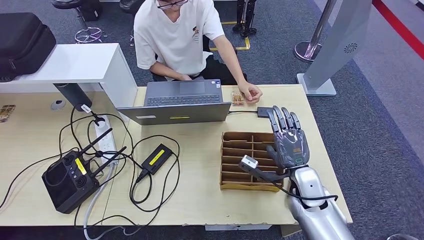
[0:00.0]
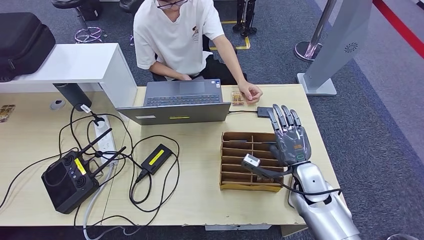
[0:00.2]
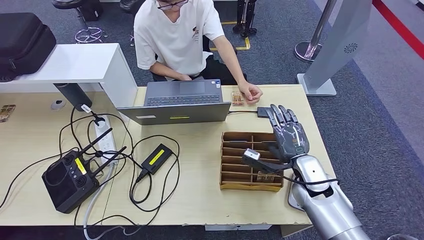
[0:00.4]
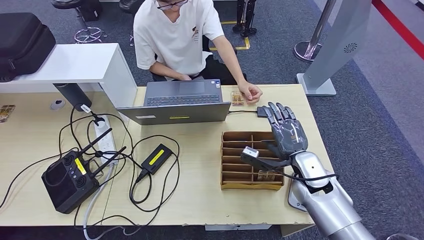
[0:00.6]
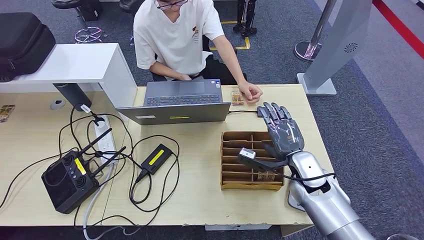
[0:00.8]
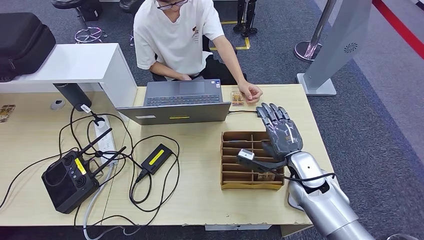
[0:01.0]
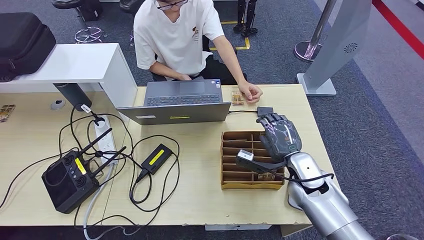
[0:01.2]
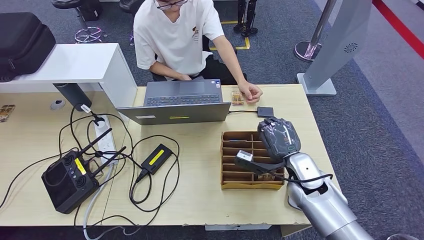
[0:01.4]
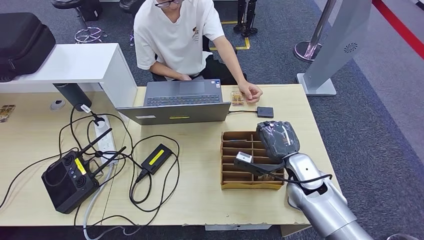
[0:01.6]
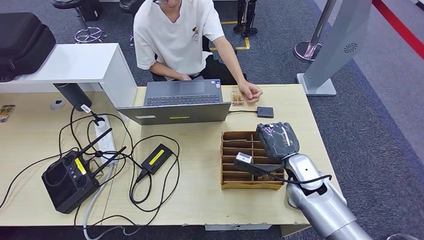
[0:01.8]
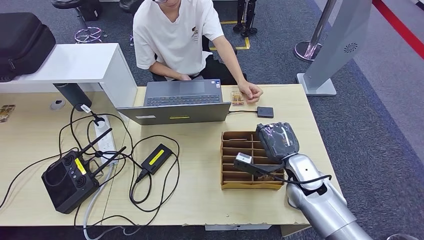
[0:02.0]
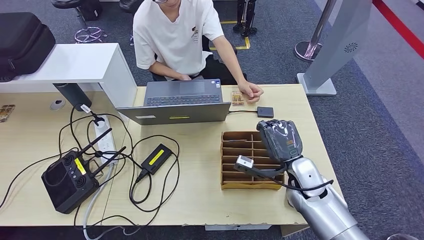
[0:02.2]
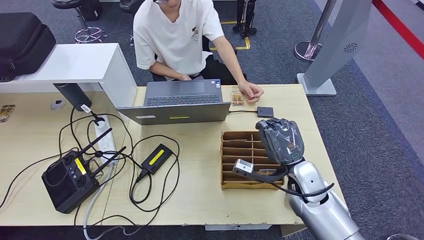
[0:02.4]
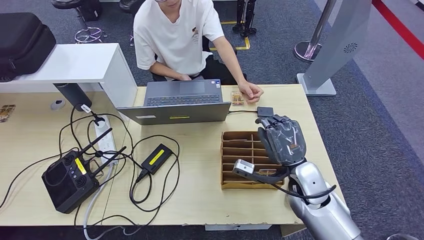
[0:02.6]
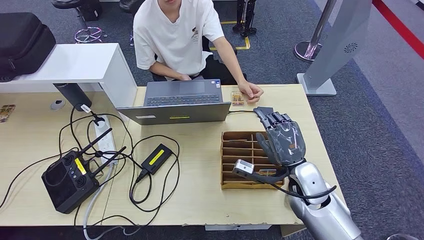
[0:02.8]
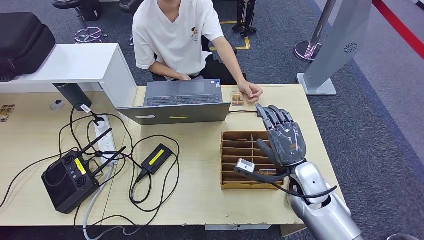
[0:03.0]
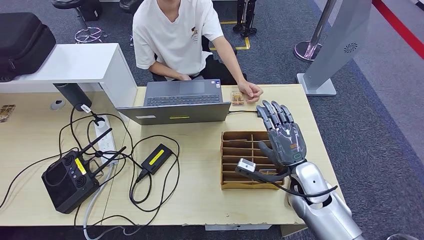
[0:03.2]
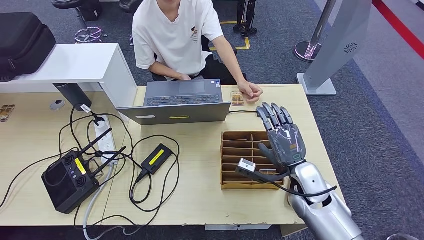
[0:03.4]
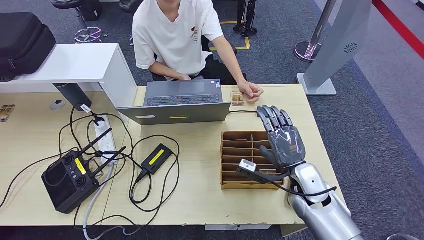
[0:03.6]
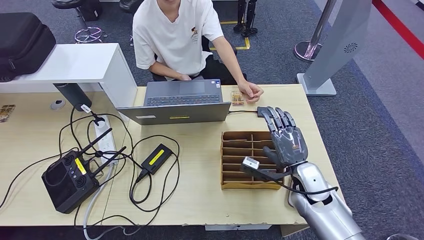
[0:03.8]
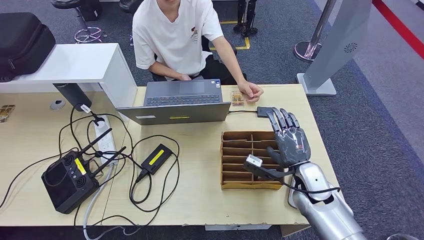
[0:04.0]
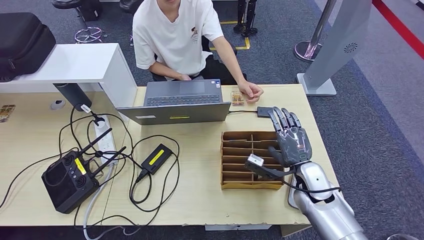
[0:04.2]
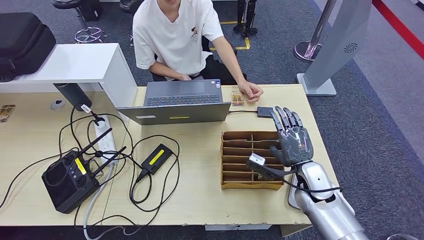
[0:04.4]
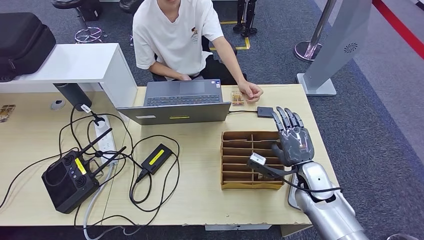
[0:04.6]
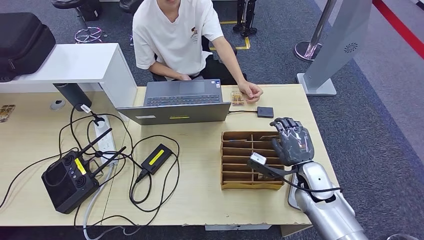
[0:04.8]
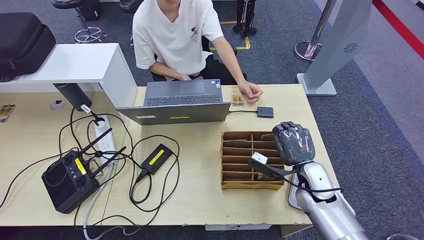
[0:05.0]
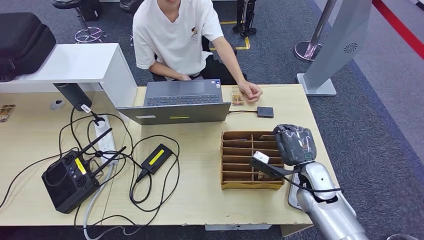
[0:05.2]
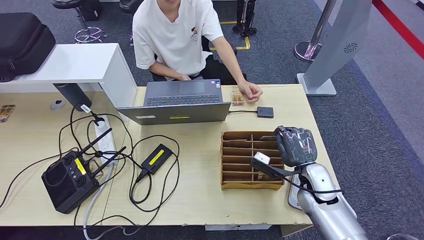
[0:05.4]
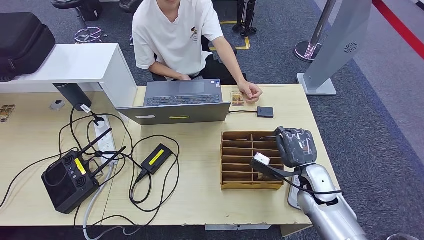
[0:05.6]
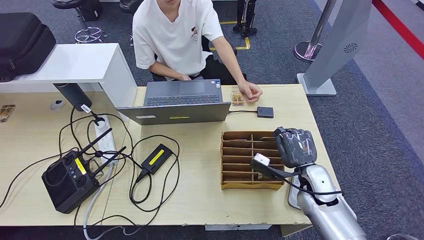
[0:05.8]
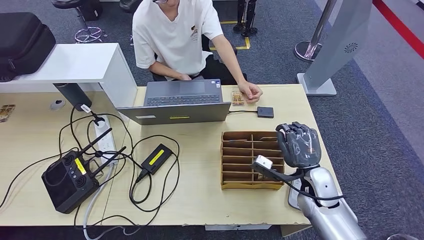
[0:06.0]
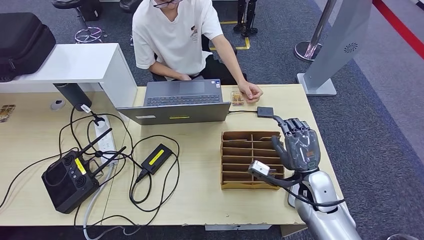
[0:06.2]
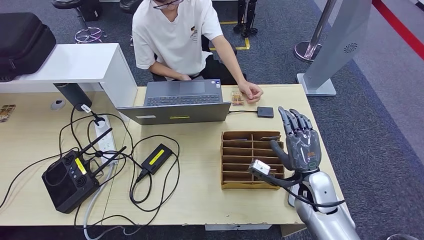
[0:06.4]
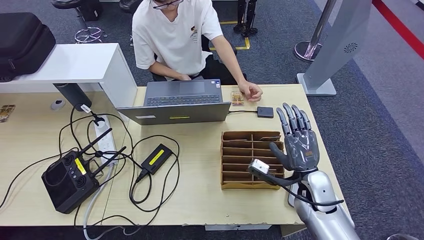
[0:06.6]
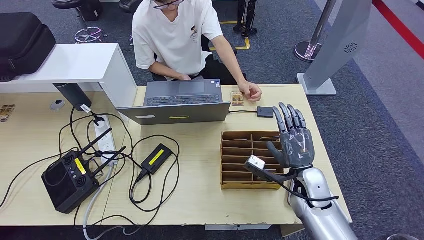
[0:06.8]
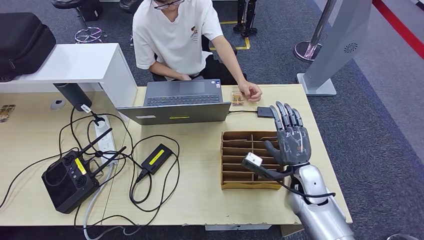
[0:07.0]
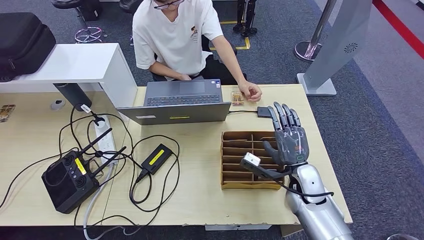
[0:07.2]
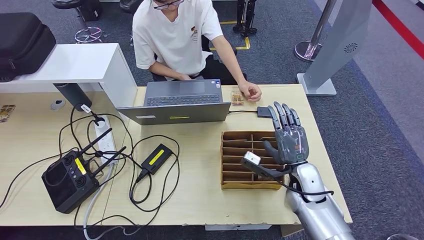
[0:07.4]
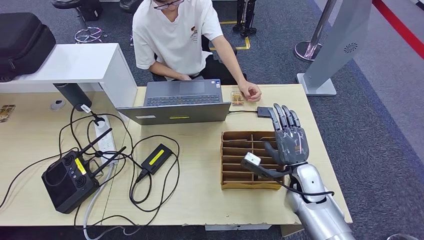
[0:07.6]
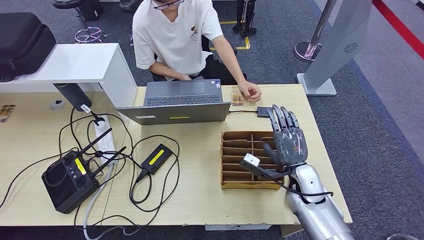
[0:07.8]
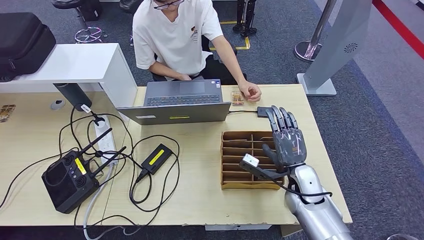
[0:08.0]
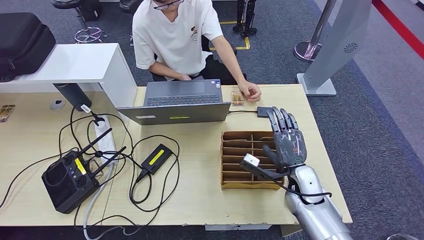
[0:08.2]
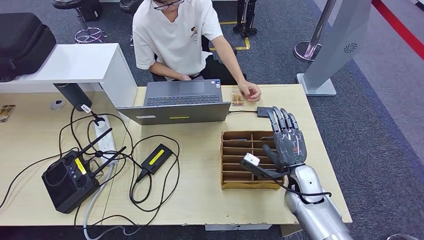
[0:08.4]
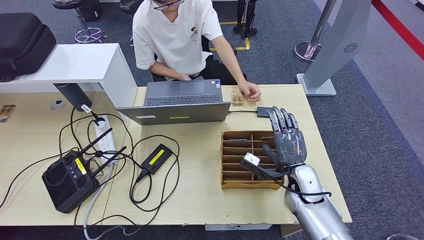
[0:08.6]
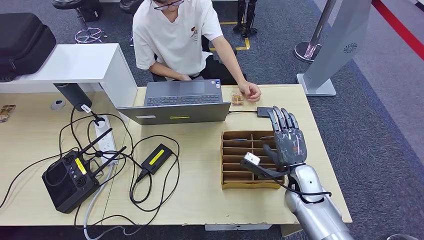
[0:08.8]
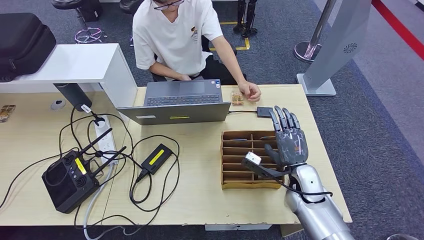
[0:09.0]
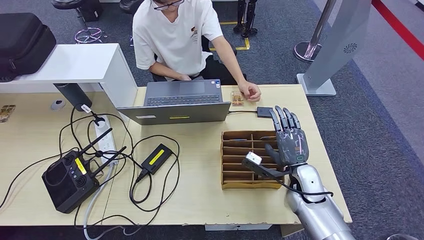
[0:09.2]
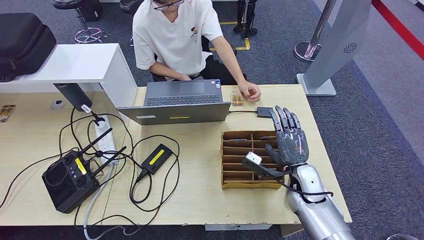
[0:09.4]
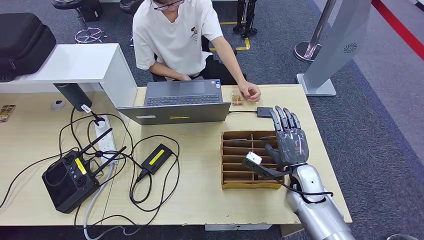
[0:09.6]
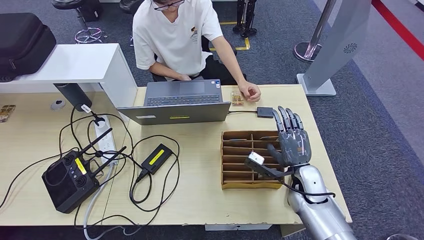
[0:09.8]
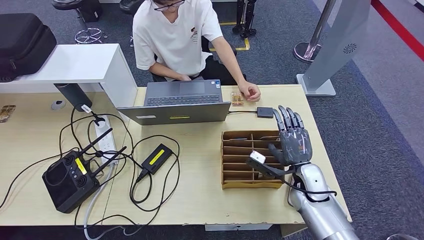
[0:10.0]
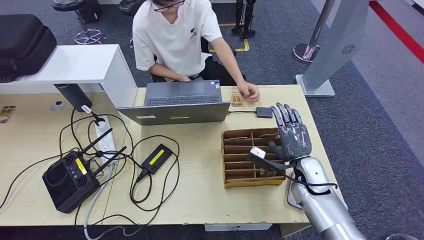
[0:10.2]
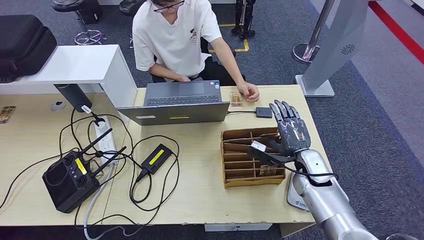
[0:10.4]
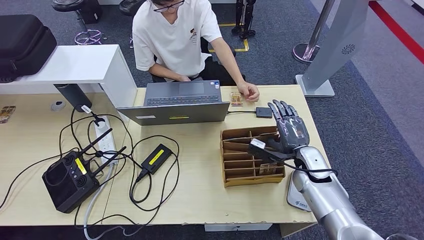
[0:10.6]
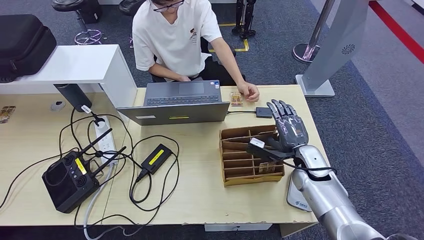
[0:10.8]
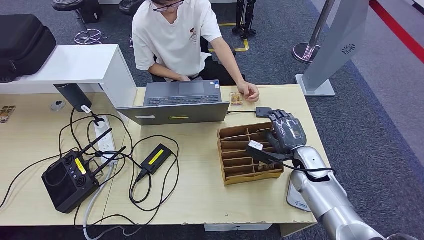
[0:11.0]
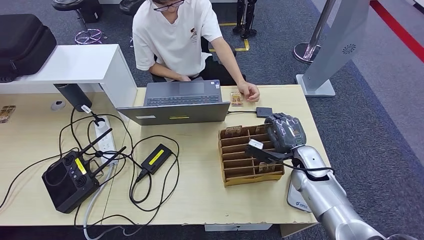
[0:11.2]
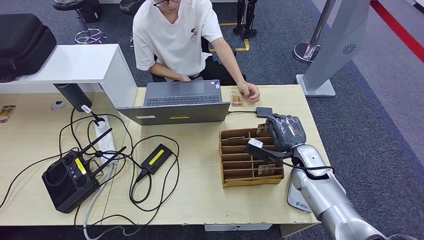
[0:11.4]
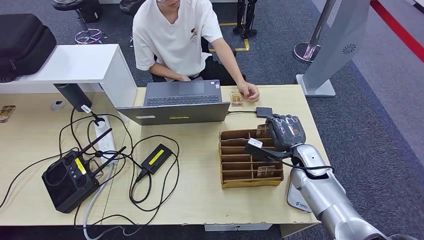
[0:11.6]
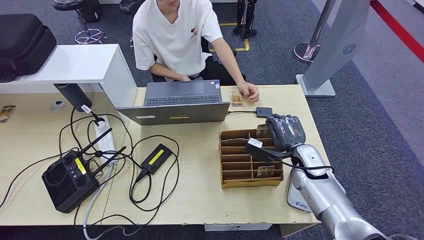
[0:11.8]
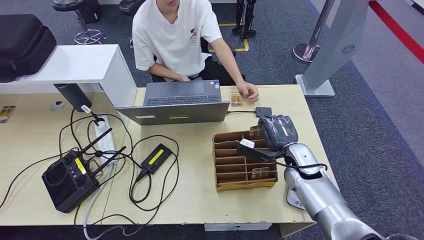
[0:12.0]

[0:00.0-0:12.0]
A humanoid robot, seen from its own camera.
Step, 0:00.0 to 0:07.2: Pick up the room key from the key card box.
0:00.0 to 0:01.6: The hands move only a little.
0:03.0 to 0:04.4: The right hand changes place by approximately 5 cm.
0:04.4 to 0:07.6: The hands move only a little.
0:07.6 to 0:09.0: The two hands keep their place.
0:09.0 to 0:10.4: The left hand moves to the left and backward, roughly 10 cm.
0:10.4 to 0:12.0: The left hand shifts by some 5 cm.

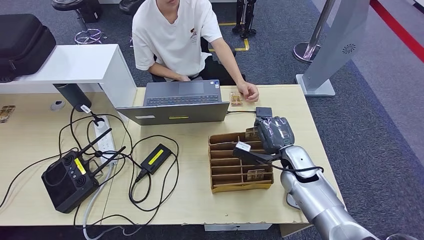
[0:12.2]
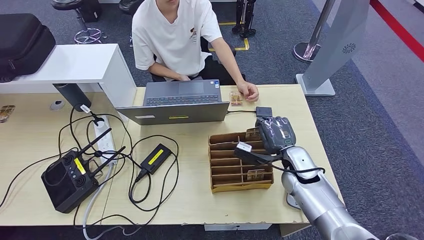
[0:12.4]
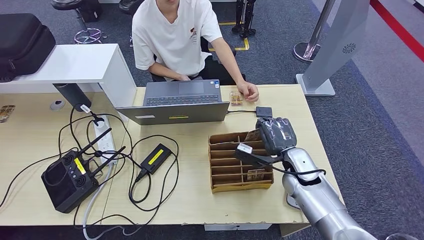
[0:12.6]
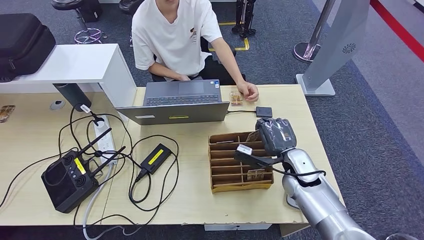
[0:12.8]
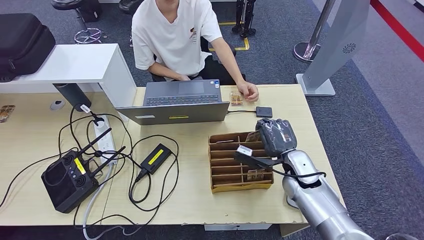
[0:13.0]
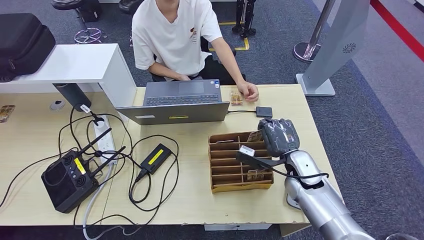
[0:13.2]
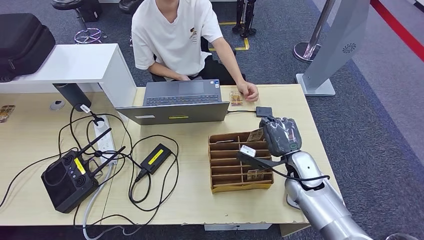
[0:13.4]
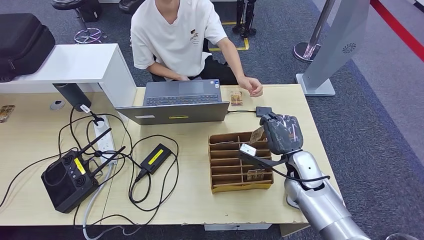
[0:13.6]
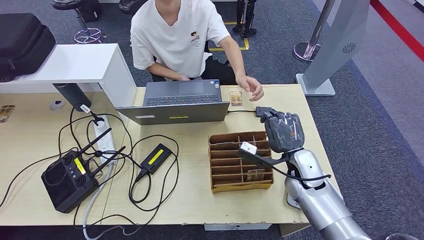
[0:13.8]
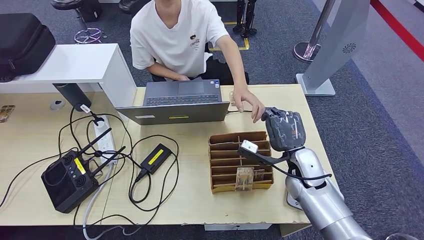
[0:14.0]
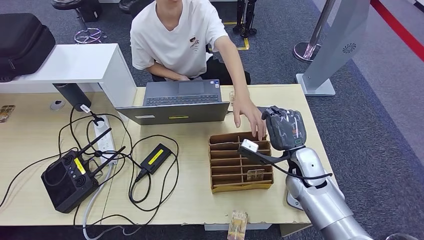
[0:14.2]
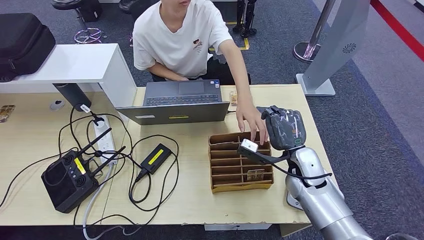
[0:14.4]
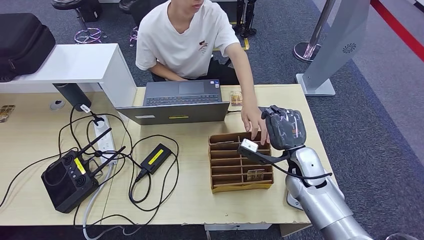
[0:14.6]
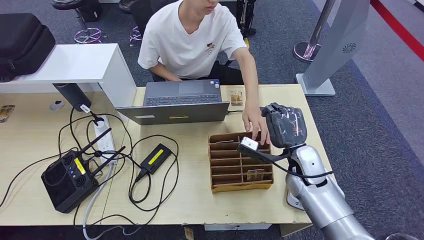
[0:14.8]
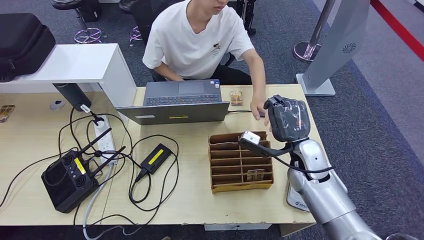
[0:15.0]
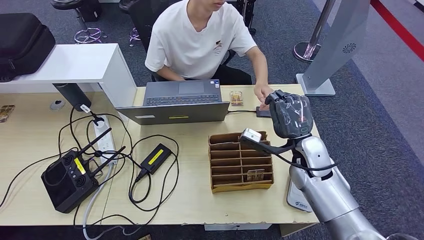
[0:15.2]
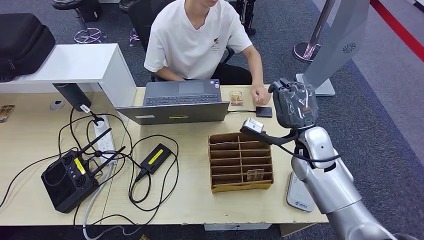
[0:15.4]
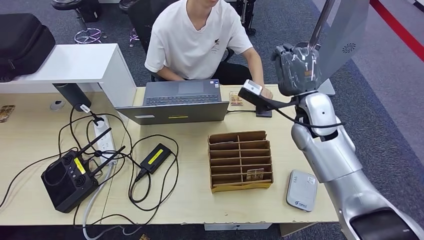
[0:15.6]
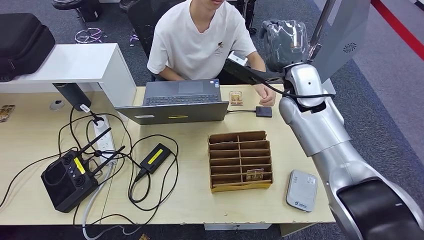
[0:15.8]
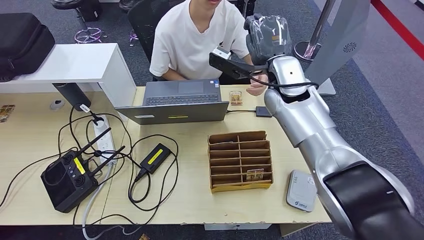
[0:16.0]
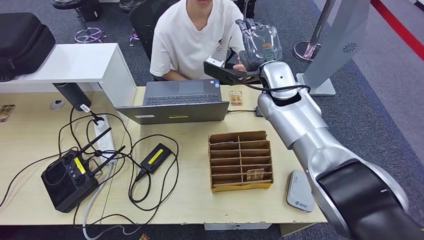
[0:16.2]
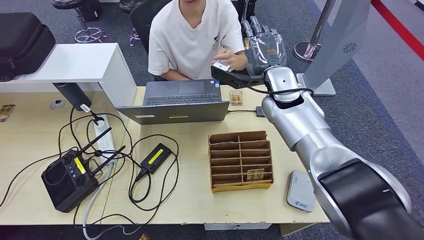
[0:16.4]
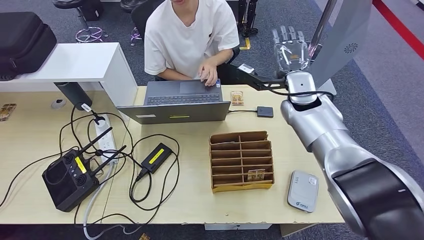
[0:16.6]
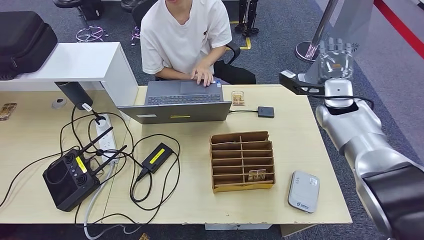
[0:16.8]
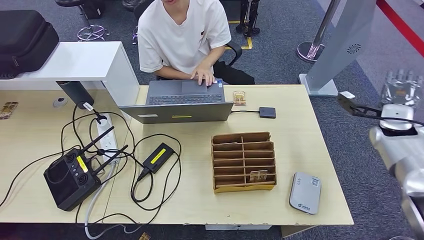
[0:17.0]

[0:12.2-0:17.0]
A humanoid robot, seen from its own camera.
Step, 0:12.2 to 0:17.0: Hand the room key to the person.
0:12.2 to 0:13.8: There are only small adjustments of the hands.
0:13.8 to 0:15.4: The right hand moves upward, about 5 cm.
